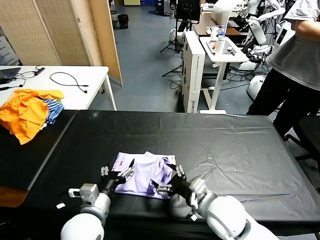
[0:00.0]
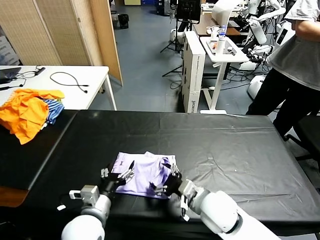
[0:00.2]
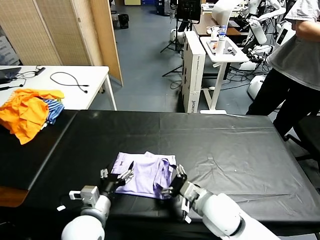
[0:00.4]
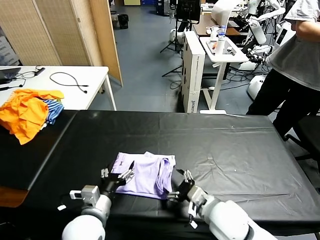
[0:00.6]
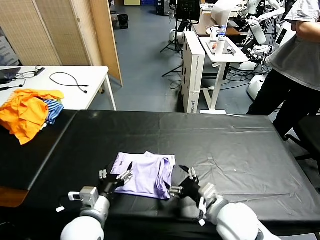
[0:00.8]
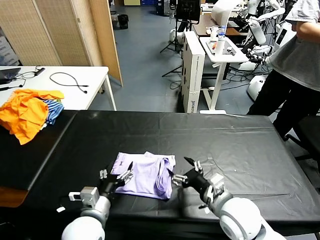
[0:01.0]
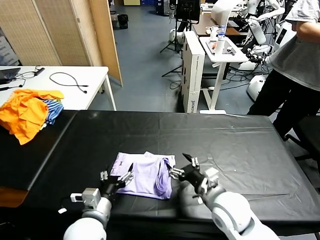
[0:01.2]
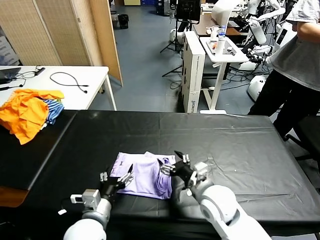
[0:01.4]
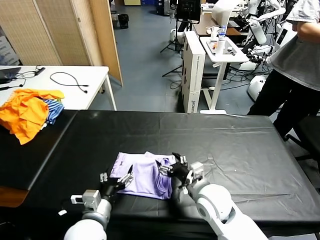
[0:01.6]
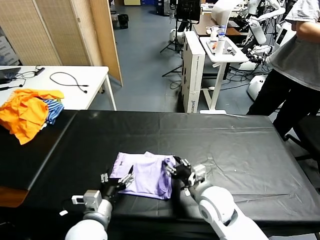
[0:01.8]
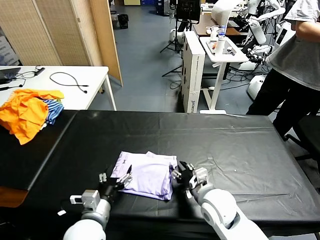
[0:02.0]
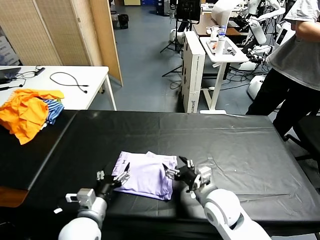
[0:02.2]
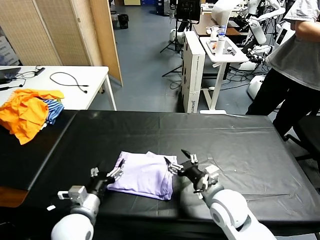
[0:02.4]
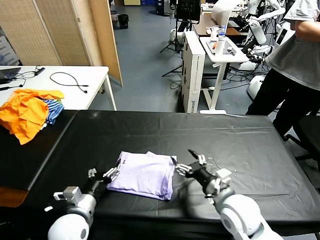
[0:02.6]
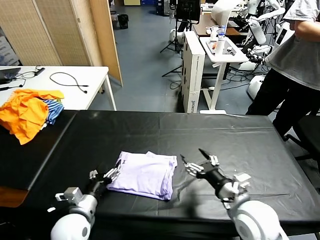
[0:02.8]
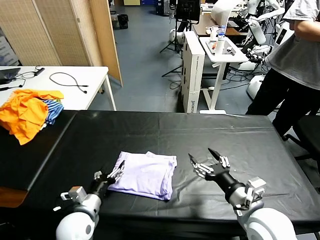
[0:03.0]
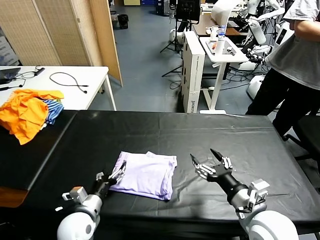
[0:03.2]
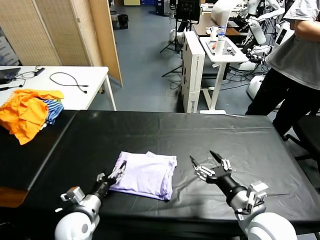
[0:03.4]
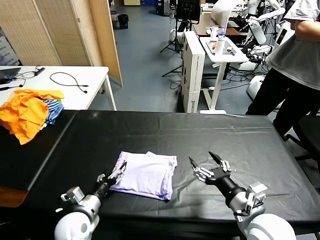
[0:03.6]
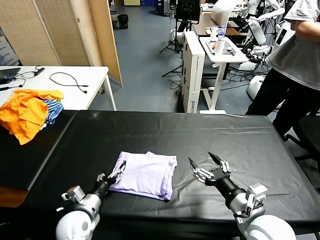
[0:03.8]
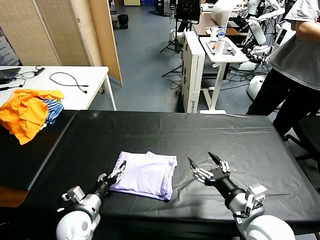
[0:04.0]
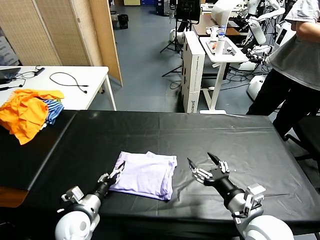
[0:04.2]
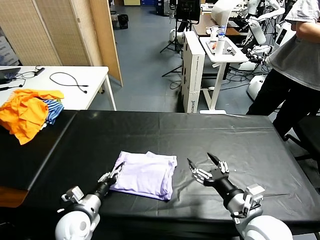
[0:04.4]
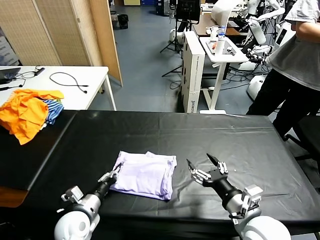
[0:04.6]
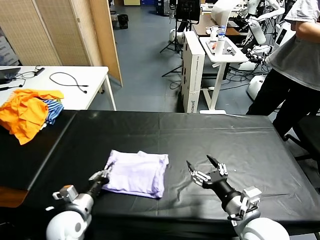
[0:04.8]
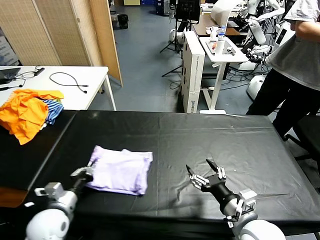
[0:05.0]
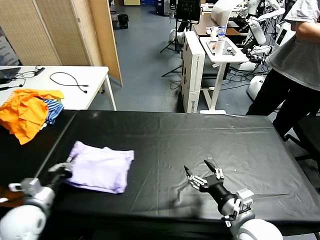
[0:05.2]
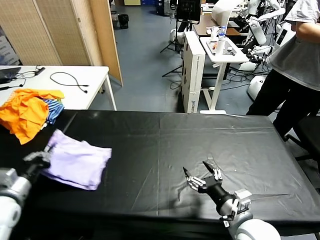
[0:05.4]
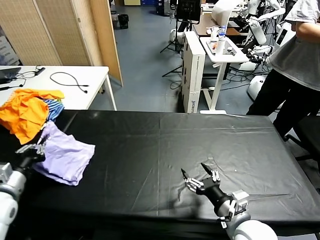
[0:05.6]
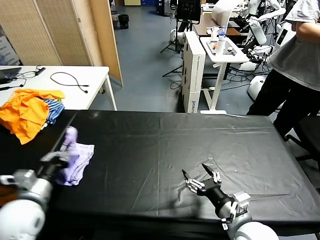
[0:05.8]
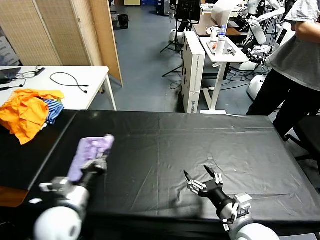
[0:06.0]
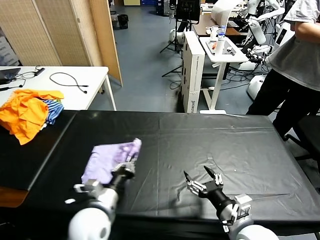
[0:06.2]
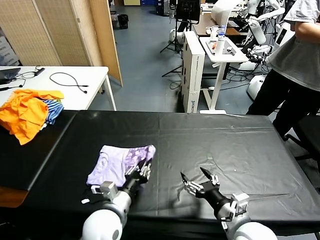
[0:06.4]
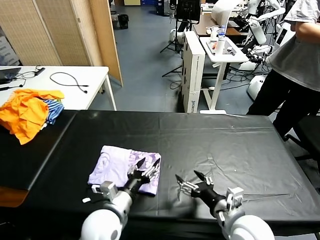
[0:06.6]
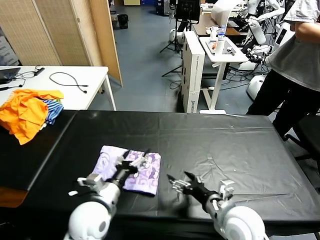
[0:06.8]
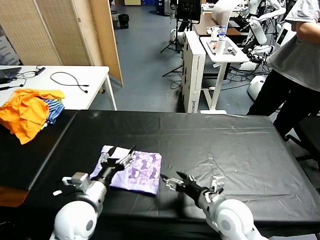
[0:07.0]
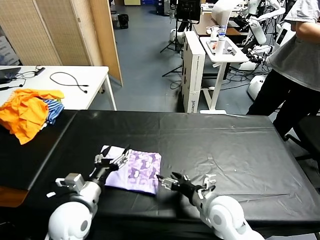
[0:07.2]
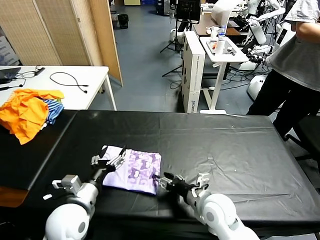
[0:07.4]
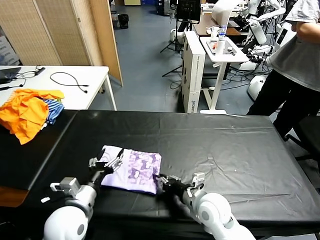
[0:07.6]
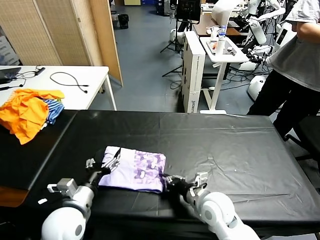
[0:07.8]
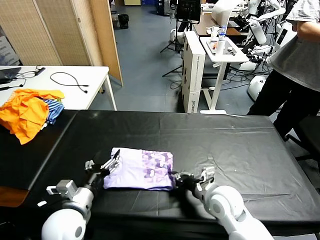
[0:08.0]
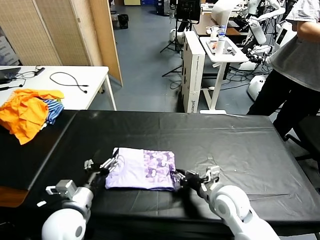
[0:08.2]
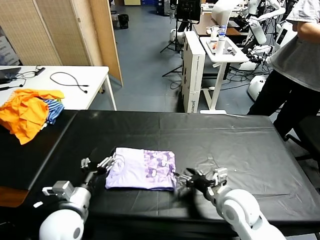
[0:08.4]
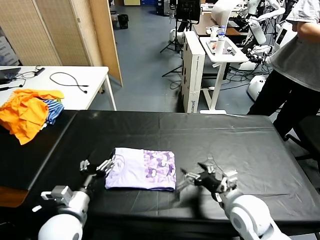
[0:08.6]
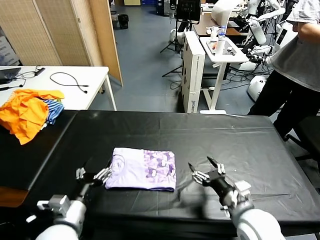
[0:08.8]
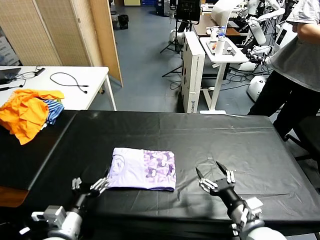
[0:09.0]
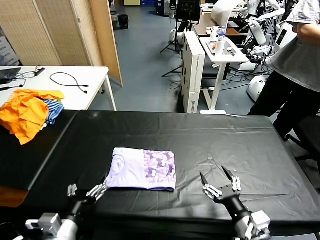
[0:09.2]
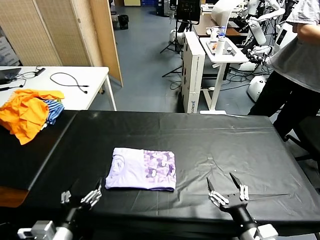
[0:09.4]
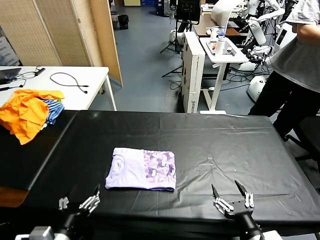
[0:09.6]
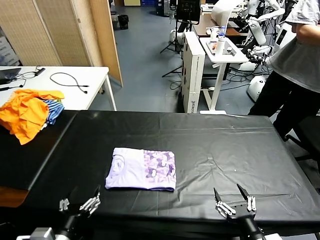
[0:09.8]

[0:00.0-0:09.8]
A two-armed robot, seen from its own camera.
Task of the whole recording: fold and organize the clothes.
Step, 0:00.0 to 0:02.2: use the left gripper to drag the left edge of the fabric to the left and folds it over the right edge.
Step, 0:02.4 to 0:06.8: Flip the folded clothes over with left gripper.
Step, 0:07.0 to 0:08.4: Drag the clothes to the center of the table.
0:01.4 to 0:02.8: The left gripper goes roughly 5 cm to the left. Meanwhile the right gripper travels to the right and backward by approximately 10 cm, and closes, then opens again.
0:02.8 to 0:04.2: The grippers stay close to where they were, moving slightly.
0:04.2 to 0:05.6: The left gripper is displaced to the left and upward by about 20 cm, and closes up.
0:05.6 to 0:07.0: The left gripper shifts some 20 cm to the right, and opens its fingers, while the right gripper heads forward, covering about 5 cm.
0:07.0 to 0:08.4: The right gripper closes its fingers.
0:08.4 to 0:09.8: The left gripper moves backward, approximately 10 cm. The right gripper moves backward, about 20 cm, and opens up.
